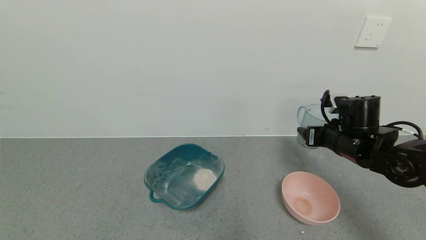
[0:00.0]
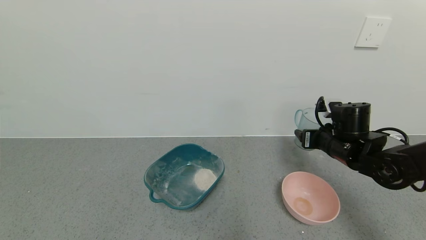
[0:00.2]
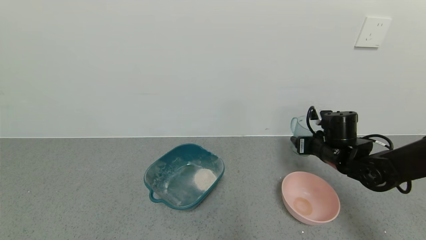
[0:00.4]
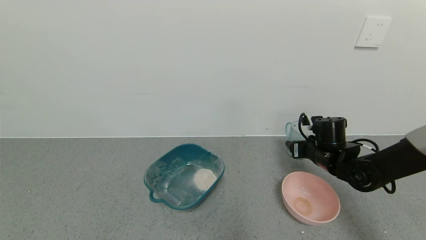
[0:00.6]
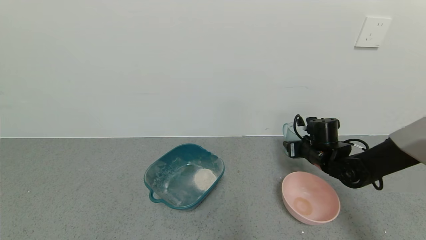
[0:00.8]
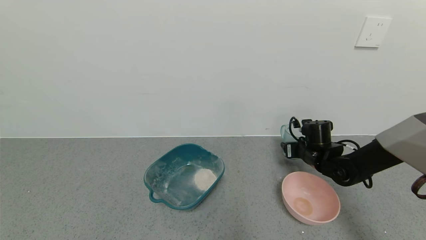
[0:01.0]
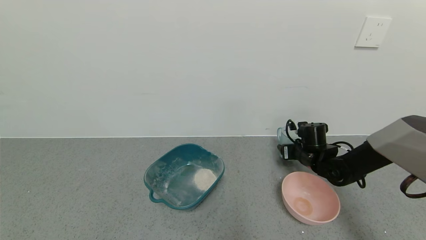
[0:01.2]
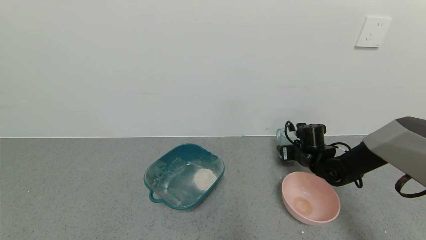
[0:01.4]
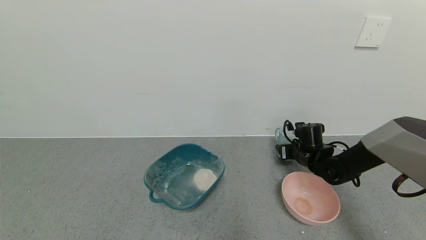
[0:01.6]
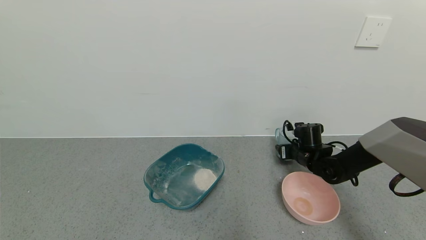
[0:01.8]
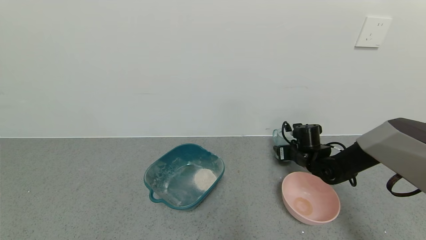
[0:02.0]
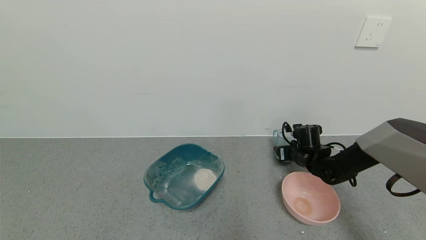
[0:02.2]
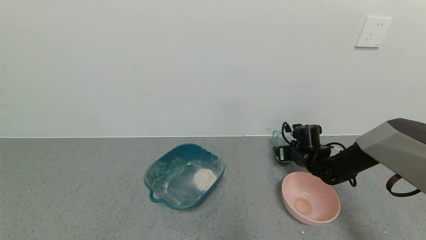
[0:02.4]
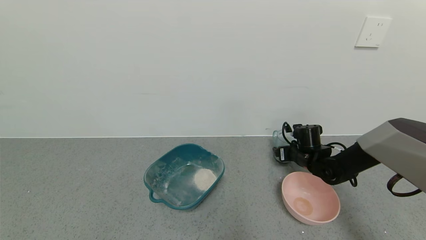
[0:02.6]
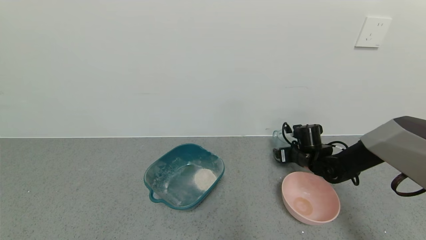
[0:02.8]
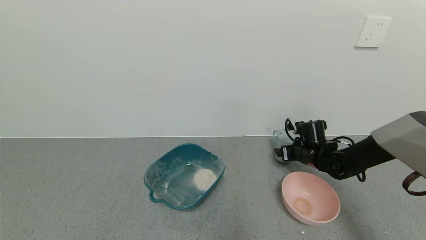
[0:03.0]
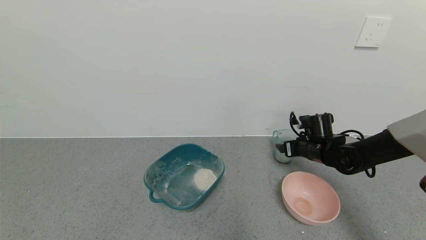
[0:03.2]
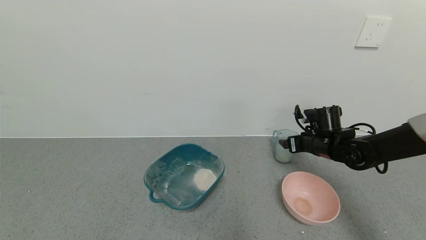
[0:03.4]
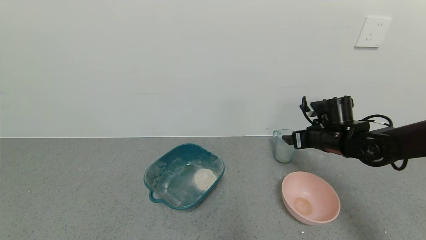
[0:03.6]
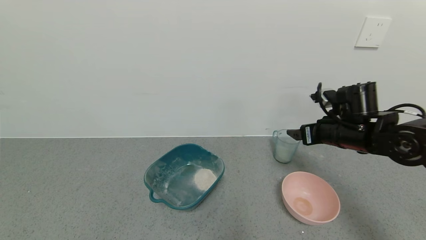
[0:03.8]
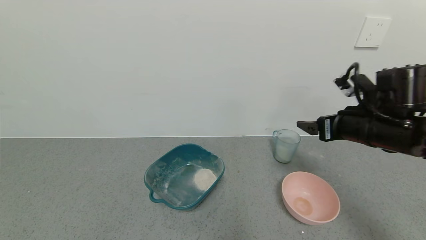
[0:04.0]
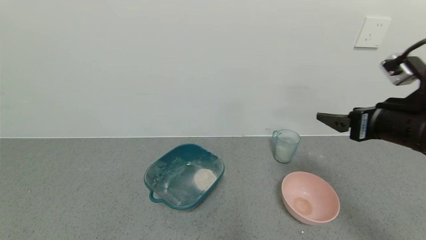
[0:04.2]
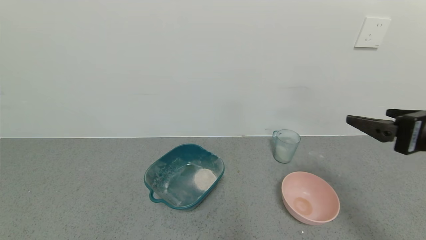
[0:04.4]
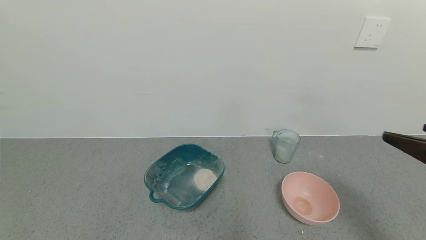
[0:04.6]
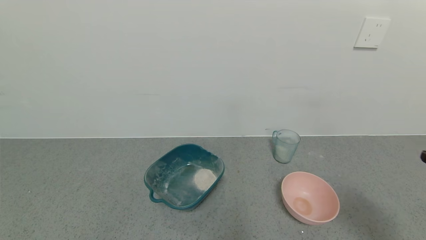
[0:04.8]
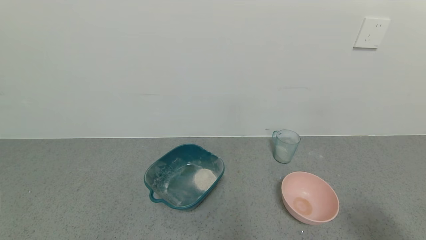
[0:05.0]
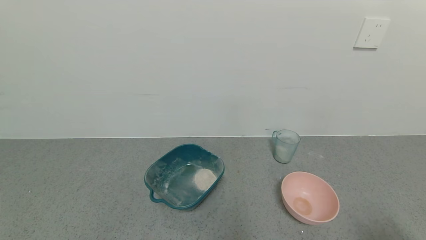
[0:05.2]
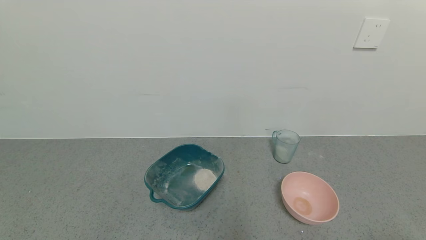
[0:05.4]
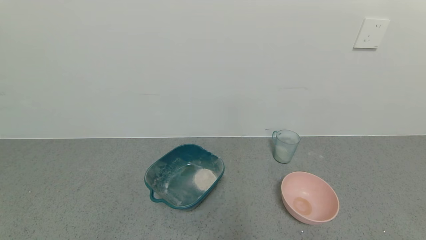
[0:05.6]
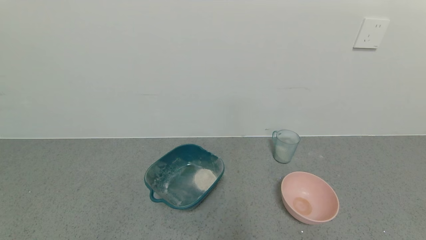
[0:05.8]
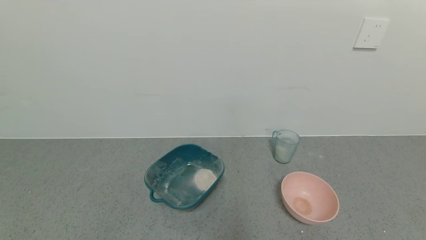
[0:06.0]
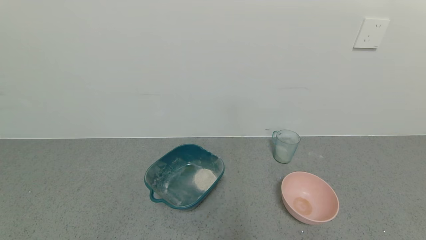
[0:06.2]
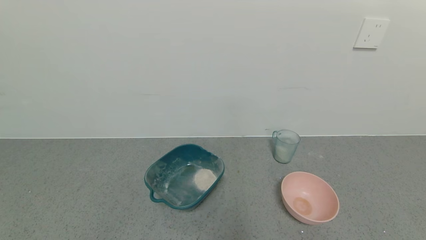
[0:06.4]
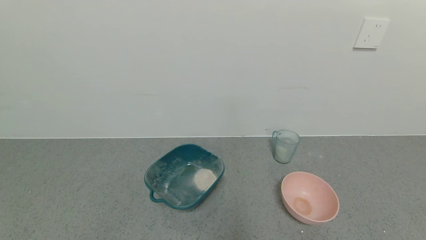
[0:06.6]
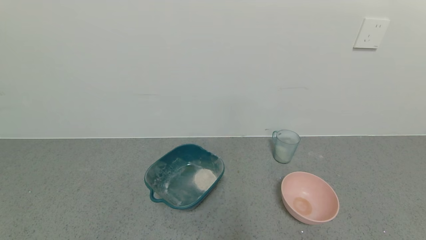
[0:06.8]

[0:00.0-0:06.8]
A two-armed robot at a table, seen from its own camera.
Task of the whole recording: use a gripper to pick up the cup and pour the powder into a bowl or tray.
Step, 0:00.0 to 0:03.4: Place the glass cup down with the right gripper.
0:00.0 to 0:01.4: The right gripper goes some 15 cm downward and forward.
0:01.4 to 0:02.8: The right gripper opens its fingers.
0:02.8 to 0:04.0: The right gripper moves upward and backward, some 20 cm.
0:04.0 to 0:05.4: The right gripper travels backward by some 30 cm.

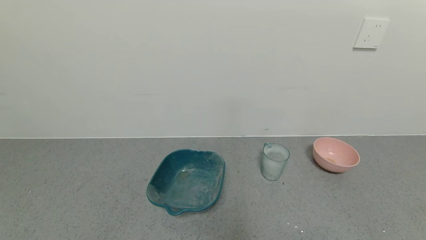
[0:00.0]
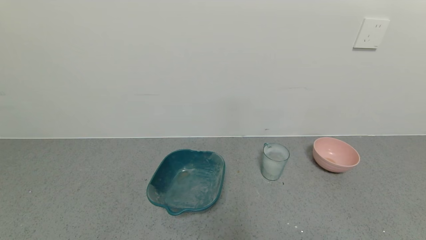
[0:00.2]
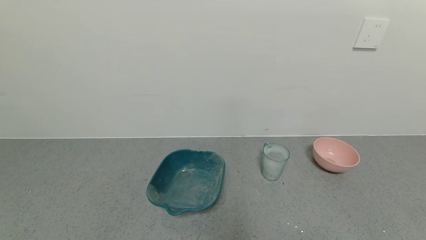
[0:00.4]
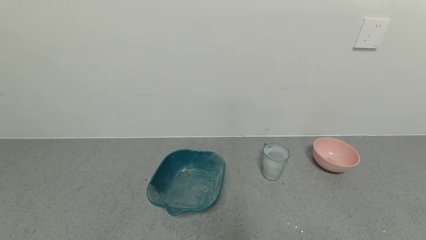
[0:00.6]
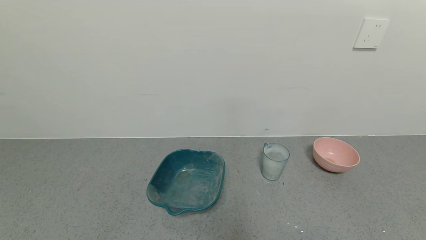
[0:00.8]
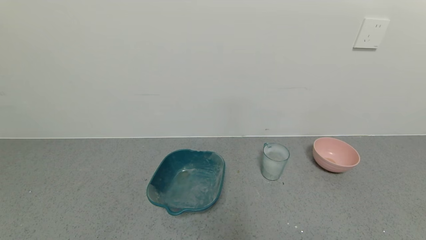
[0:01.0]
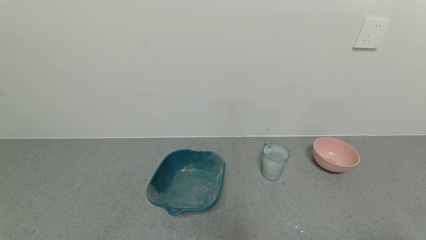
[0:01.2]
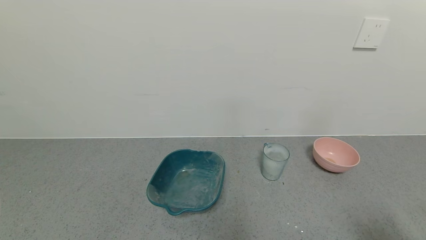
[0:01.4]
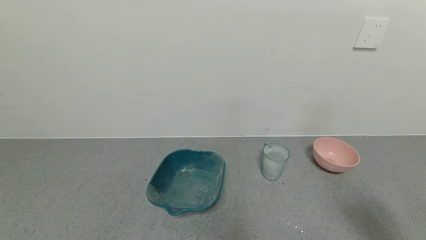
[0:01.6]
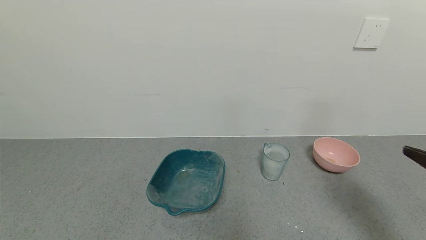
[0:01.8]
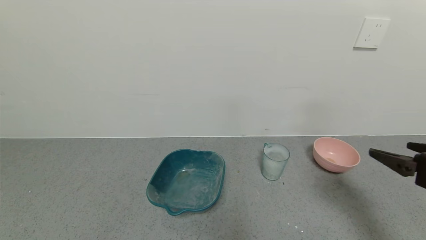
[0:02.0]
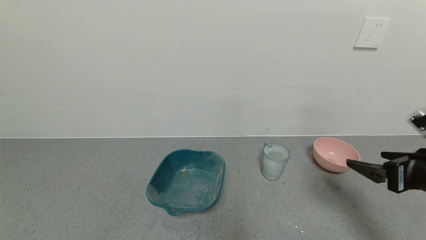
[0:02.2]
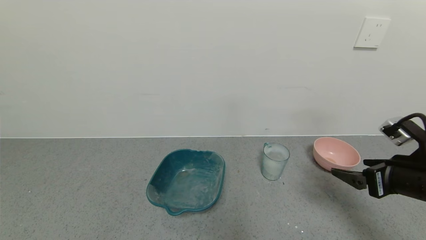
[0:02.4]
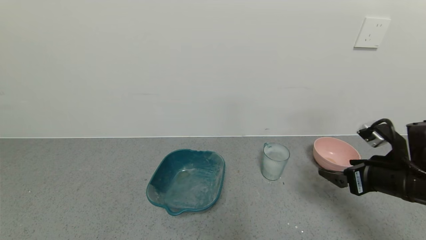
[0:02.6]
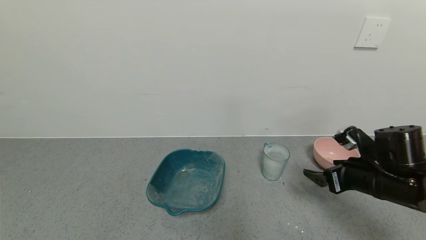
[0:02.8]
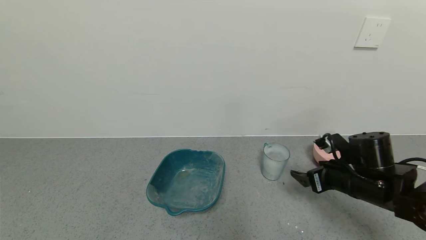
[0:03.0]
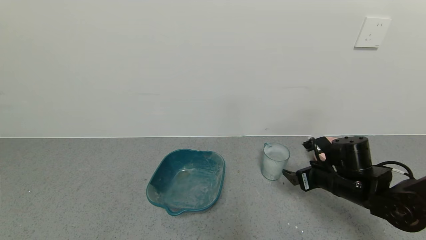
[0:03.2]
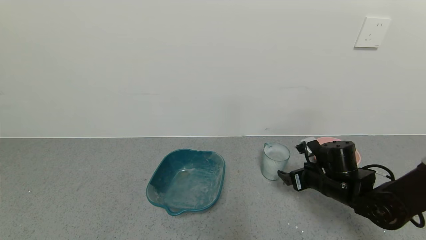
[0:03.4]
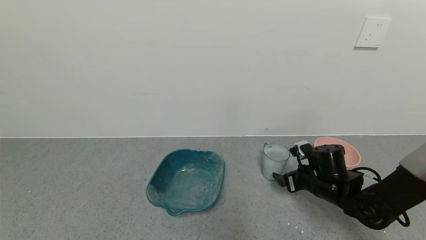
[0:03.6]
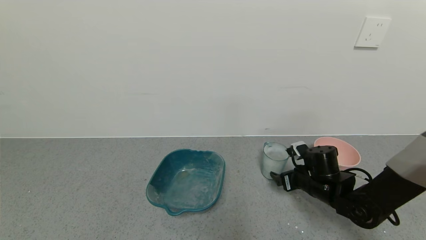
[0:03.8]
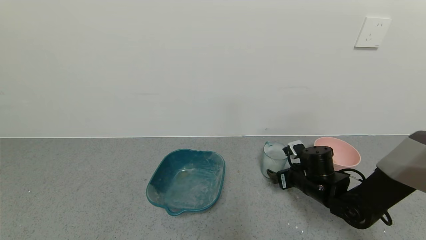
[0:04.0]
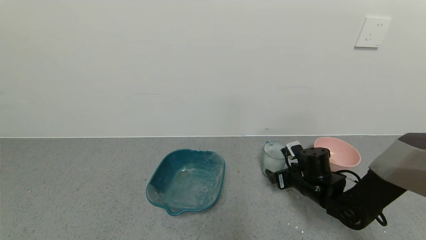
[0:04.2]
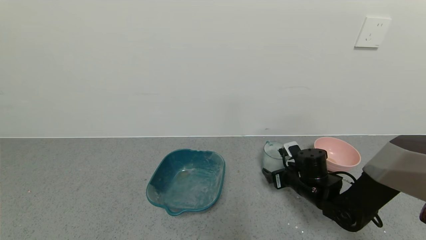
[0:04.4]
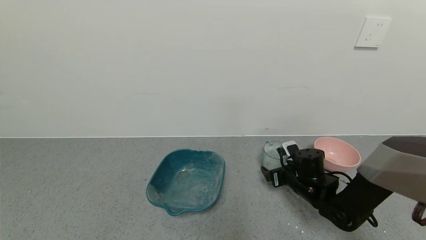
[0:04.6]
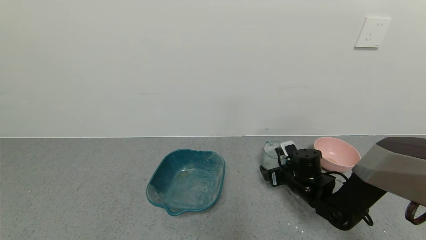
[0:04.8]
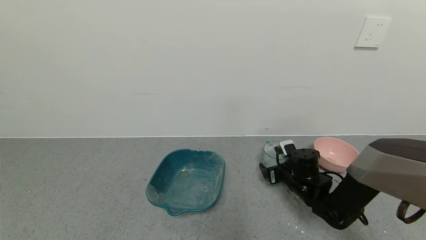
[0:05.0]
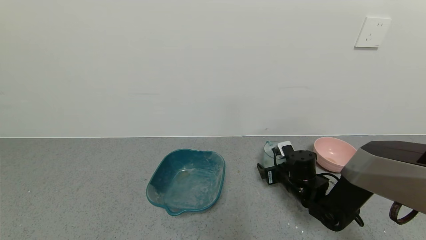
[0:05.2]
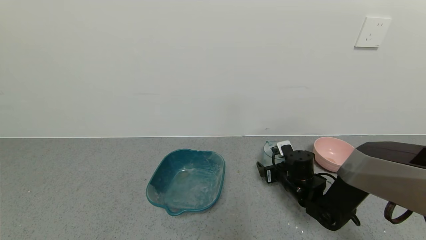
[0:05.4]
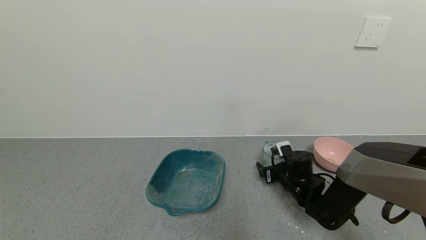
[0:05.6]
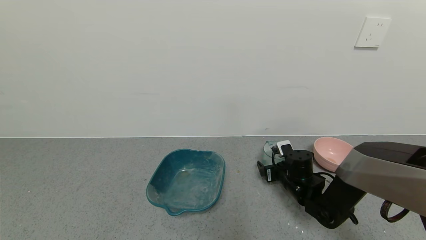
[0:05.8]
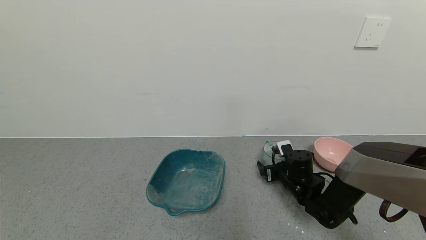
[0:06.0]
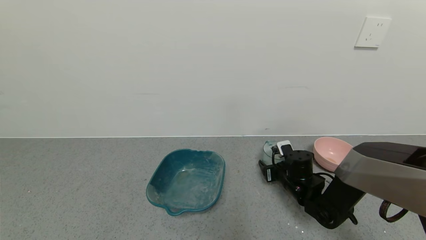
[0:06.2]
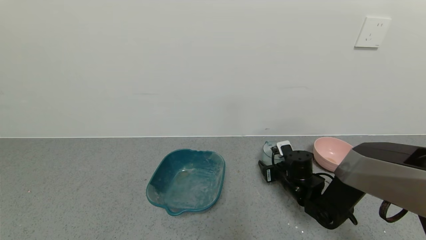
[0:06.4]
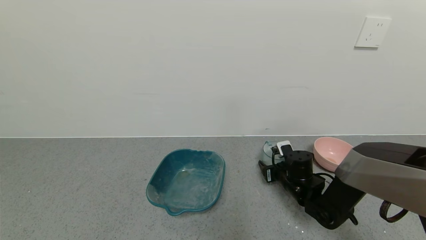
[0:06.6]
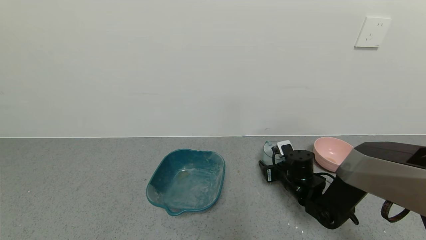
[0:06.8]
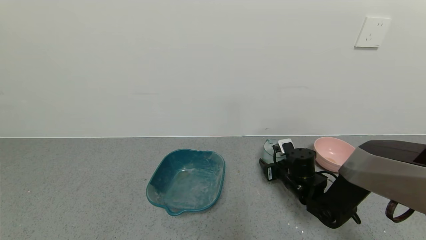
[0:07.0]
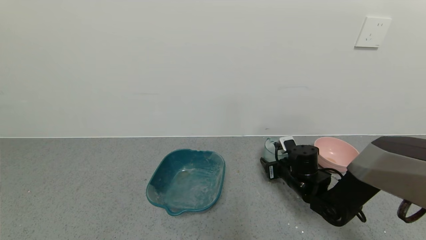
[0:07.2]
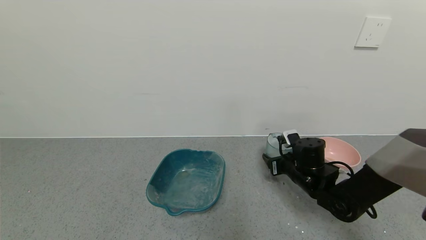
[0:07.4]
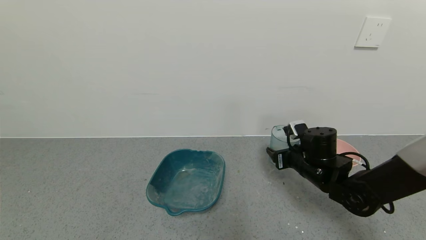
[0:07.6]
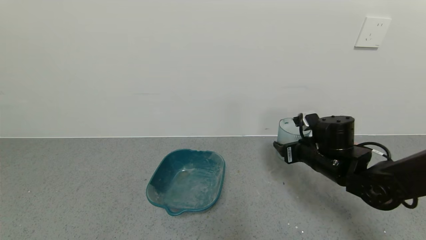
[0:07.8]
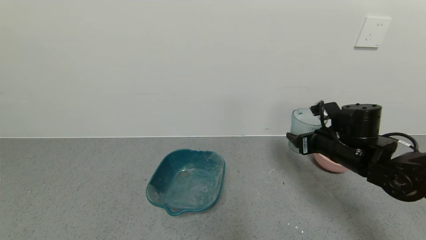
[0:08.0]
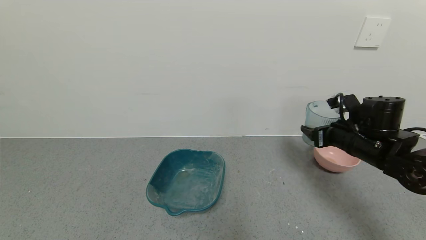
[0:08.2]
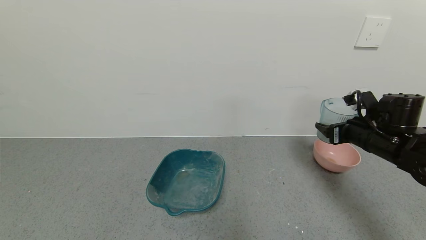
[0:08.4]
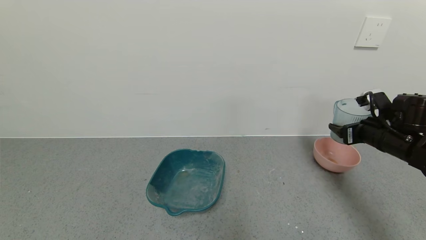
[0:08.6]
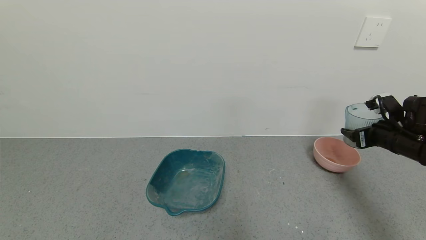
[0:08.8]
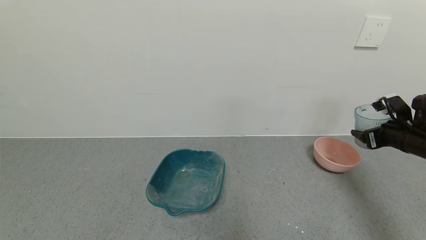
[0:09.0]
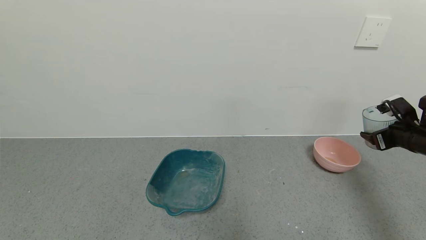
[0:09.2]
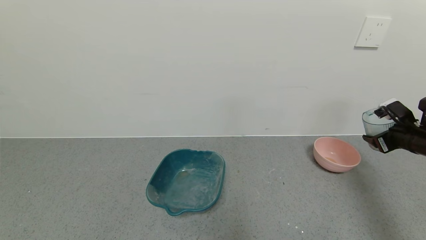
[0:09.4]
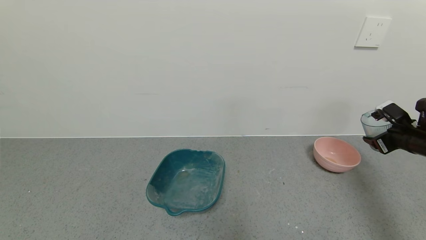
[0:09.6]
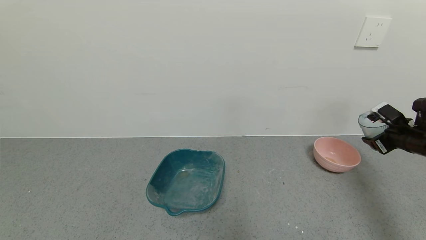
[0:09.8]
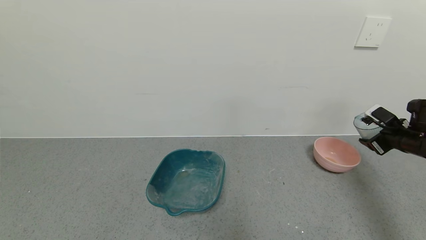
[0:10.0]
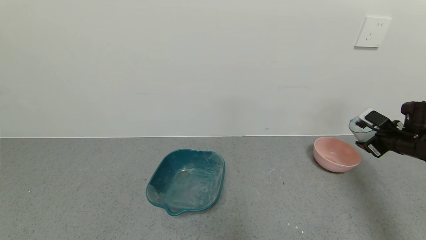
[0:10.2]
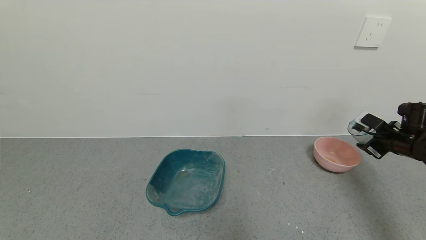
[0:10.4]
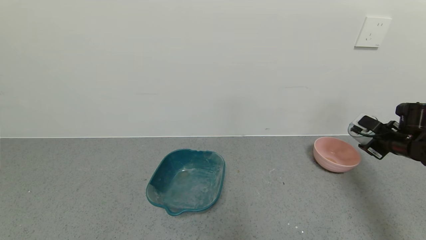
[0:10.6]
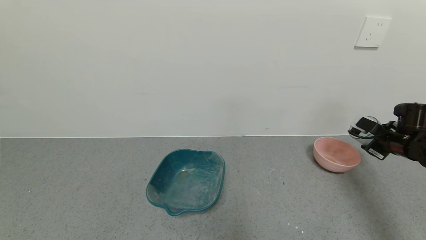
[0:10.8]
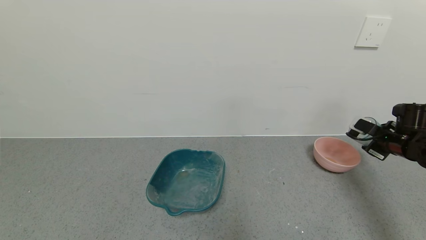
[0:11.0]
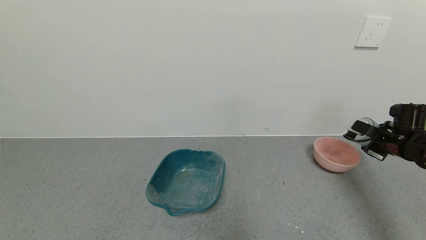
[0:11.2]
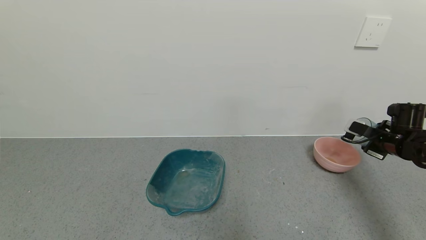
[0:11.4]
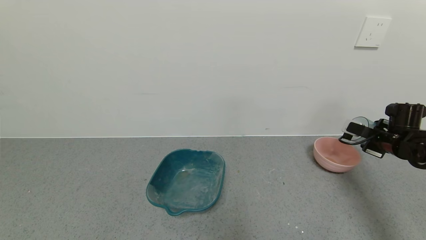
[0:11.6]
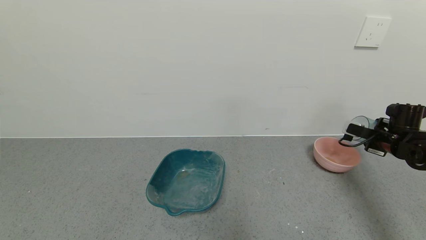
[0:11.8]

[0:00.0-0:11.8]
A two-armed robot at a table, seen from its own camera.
Task of the whole recording: use a gripper to pick up the cup and pour the powder into a bowl or tray.
Step, 0:00.0 to 0:06.4: Grasp the glass of powder with the right gripper.
0:01.4 to 0:03.0: The right gripper travels forward, downward and to the left by some 30 cm.
0:03.0 to 0:04.4: The right gripper shifts roughly 10 cm downward, forward and to the left.
0:04.4 to 0:06.0: There are only small adjustments of the grippers.
0:06.0 to 0:07.4: The right gripper shifts about 5 cm upward, and closes its fingers.
0:07.4 to 0:08.8: The right gripper shifts some 20 cm to the right and upward.
0:08.8 to 0:10.4: The right gripper goes about 5 cm to the right.
